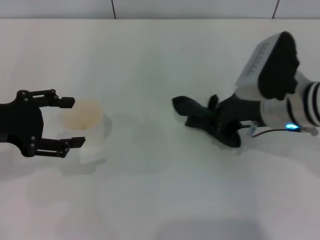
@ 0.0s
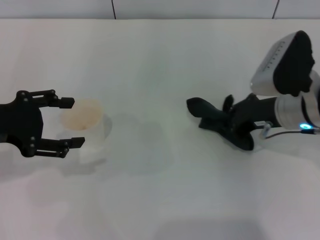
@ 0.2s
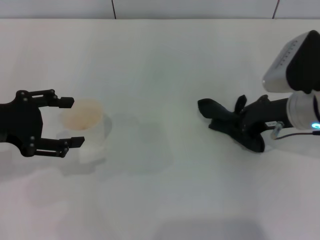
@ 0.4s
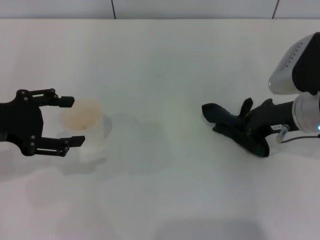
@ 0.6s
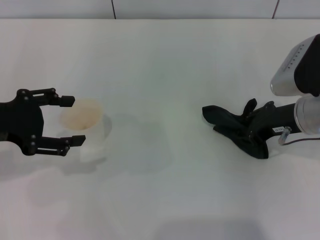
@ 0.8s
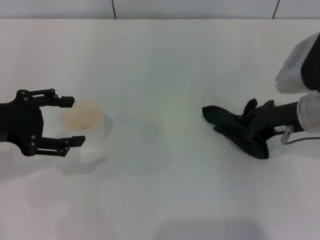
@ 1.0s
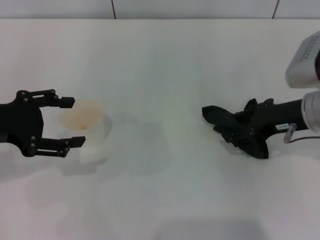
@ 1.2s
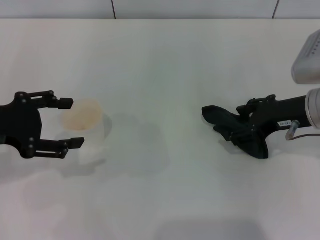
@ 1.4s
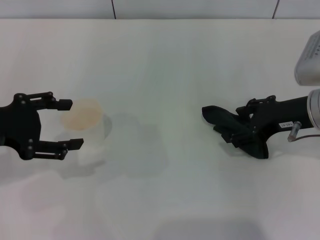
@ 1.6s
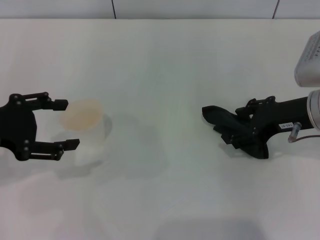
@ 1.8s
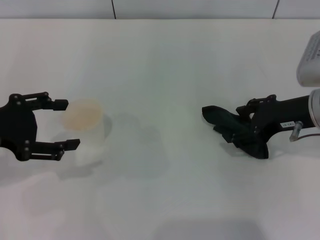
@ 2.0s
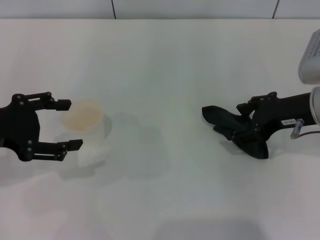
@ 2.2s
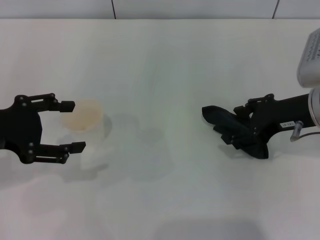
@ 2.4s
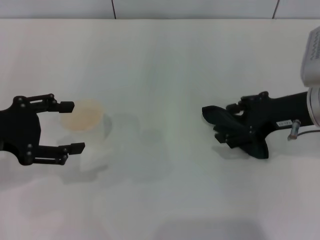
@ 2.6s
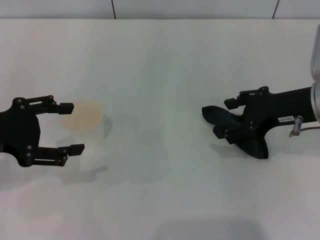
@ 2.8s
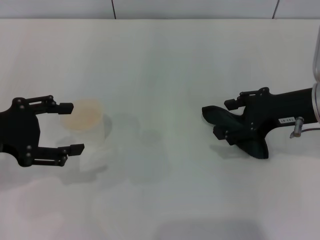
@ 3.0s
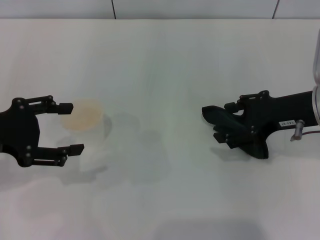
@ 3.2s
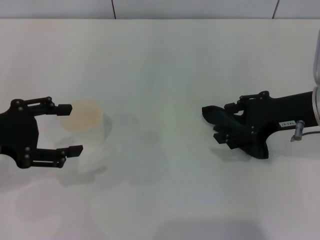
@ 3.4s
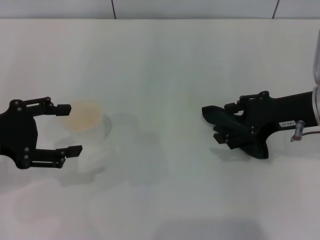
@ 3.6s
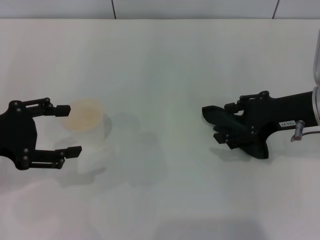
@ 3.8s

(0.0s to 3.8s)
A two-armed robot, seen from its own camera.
Step, 0.6s - 1.4s: Place the rag on the table with the right gripper.
0.0s - 1.2s: The right gripper heads to the right, covering some 5 cm, and opens up.
1.2s - 2.6s: The right gripper opens up.
2.6s - 3.8s: Neither gripper changes place.
